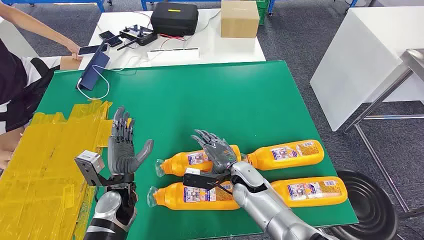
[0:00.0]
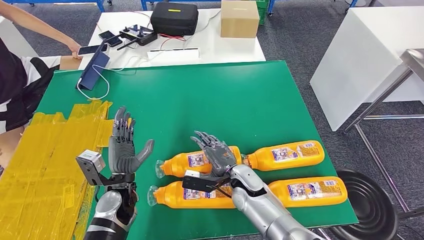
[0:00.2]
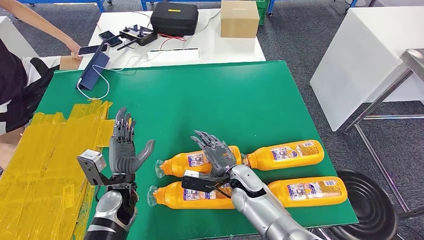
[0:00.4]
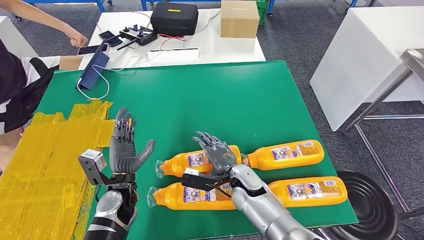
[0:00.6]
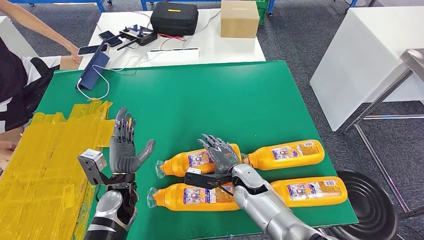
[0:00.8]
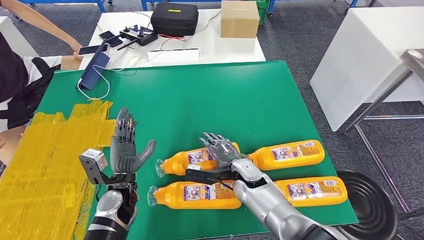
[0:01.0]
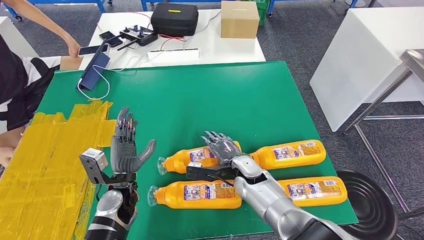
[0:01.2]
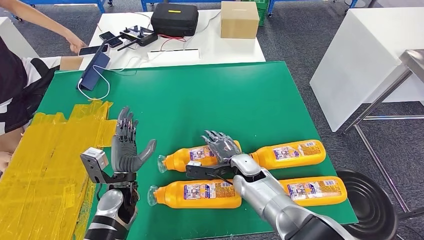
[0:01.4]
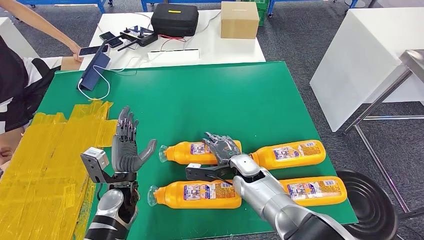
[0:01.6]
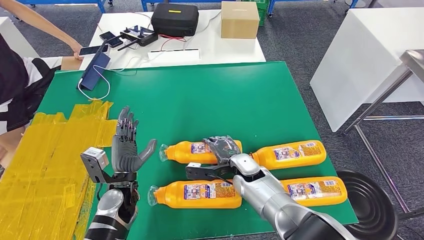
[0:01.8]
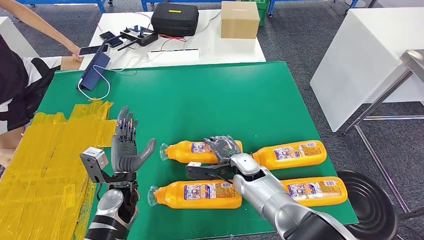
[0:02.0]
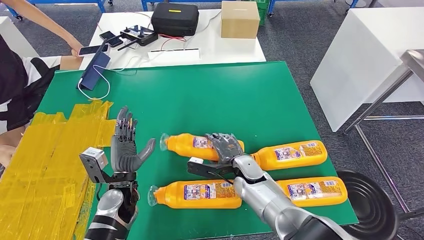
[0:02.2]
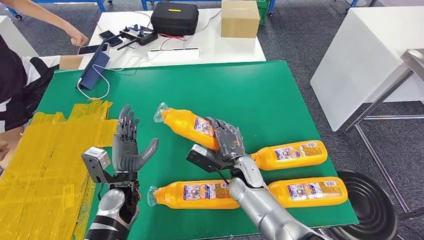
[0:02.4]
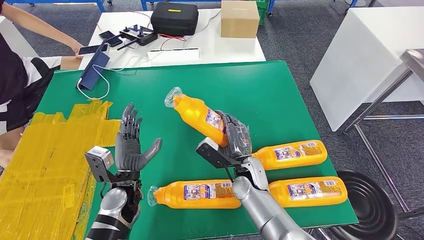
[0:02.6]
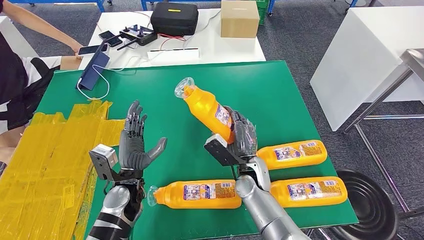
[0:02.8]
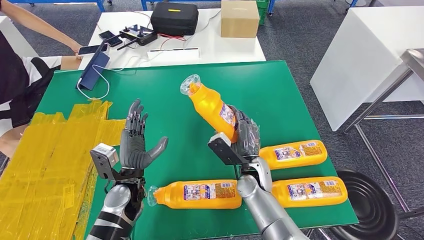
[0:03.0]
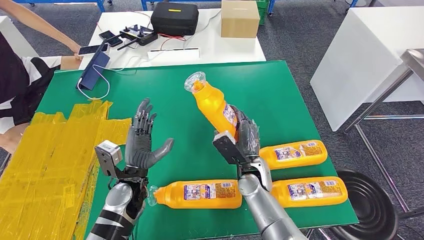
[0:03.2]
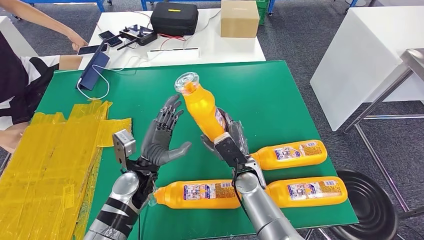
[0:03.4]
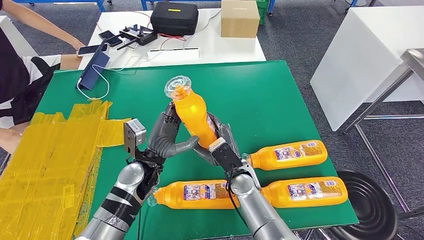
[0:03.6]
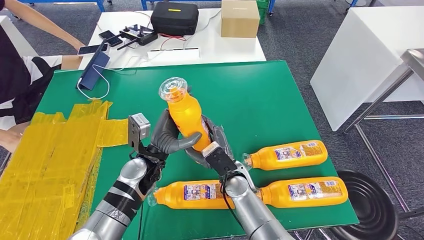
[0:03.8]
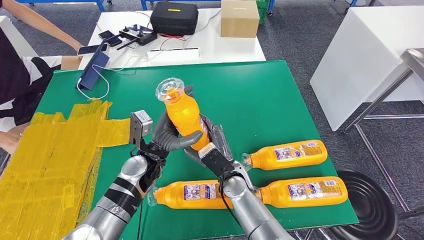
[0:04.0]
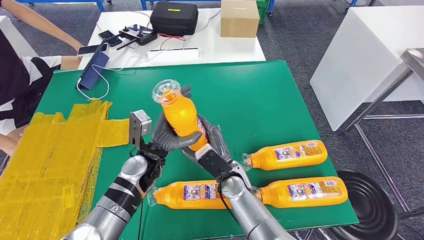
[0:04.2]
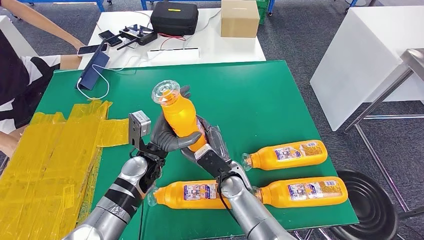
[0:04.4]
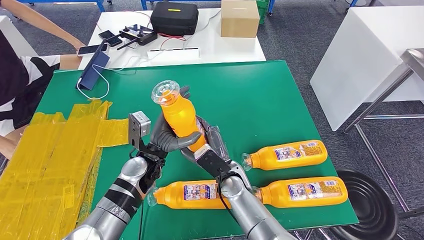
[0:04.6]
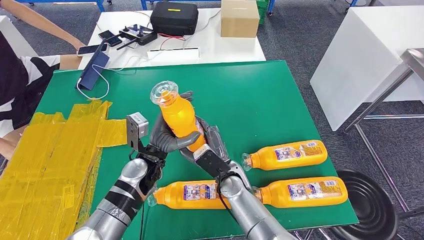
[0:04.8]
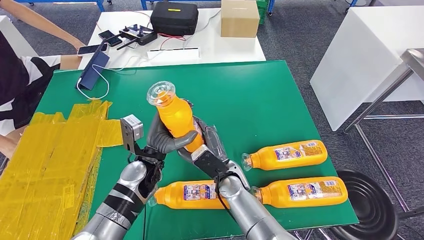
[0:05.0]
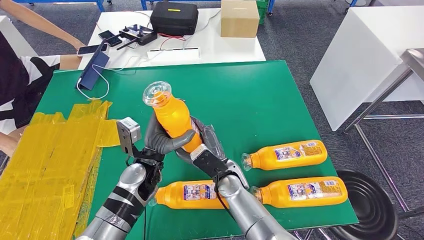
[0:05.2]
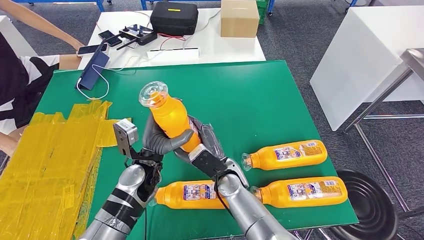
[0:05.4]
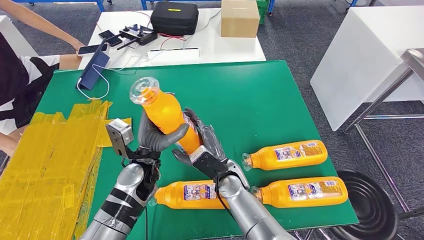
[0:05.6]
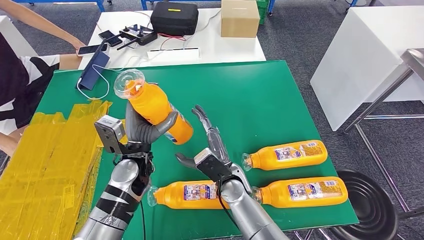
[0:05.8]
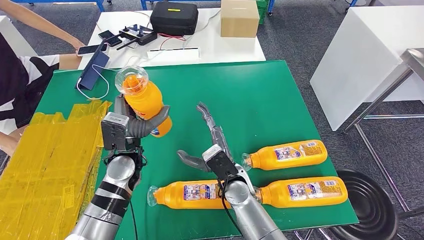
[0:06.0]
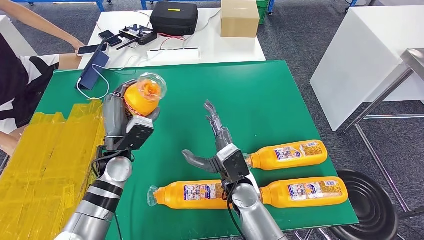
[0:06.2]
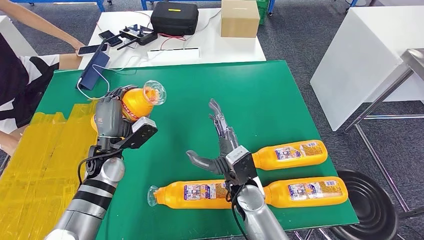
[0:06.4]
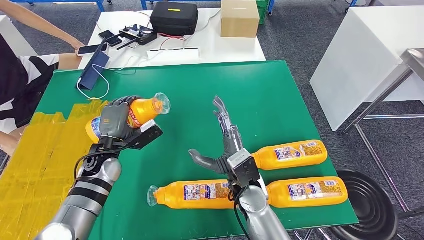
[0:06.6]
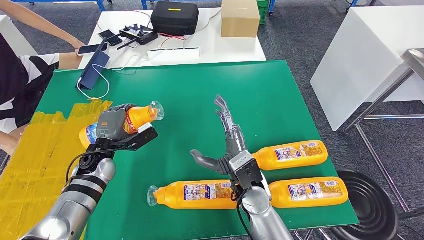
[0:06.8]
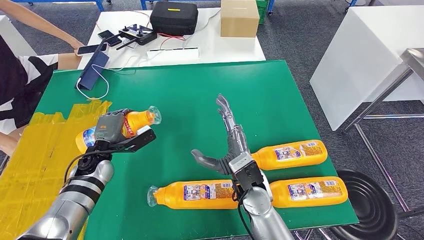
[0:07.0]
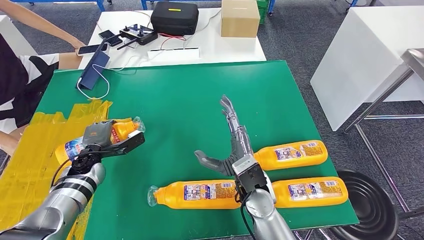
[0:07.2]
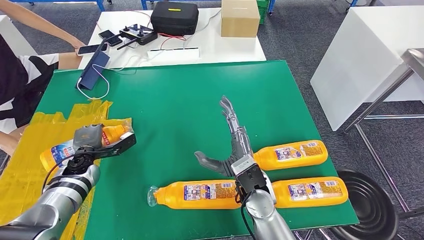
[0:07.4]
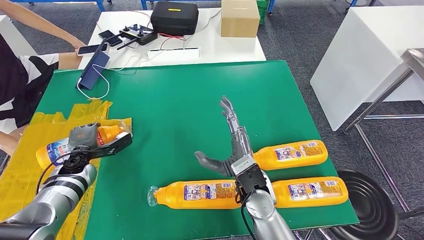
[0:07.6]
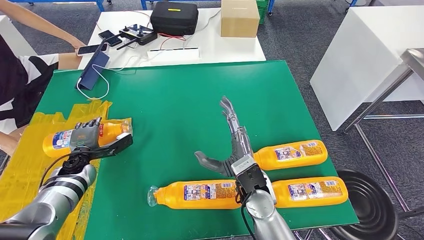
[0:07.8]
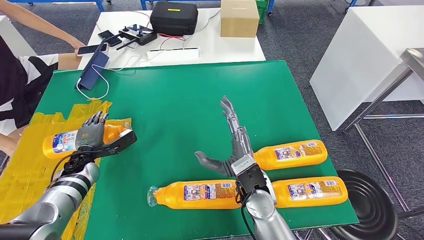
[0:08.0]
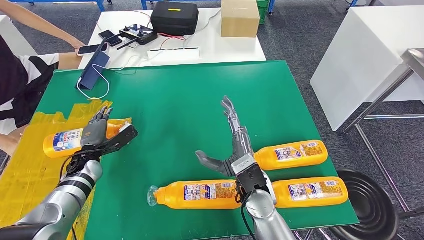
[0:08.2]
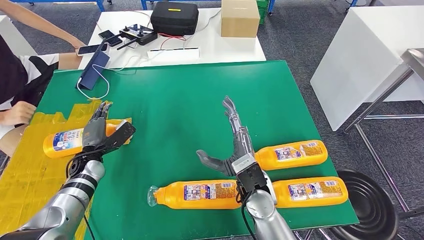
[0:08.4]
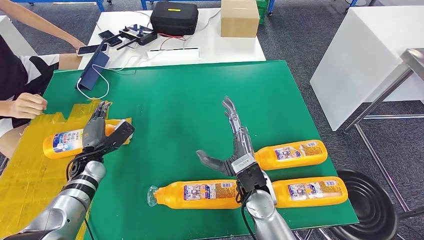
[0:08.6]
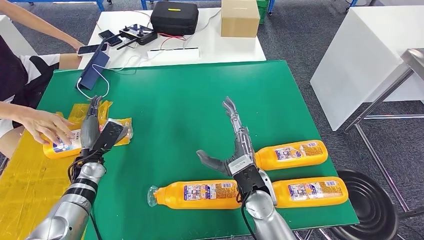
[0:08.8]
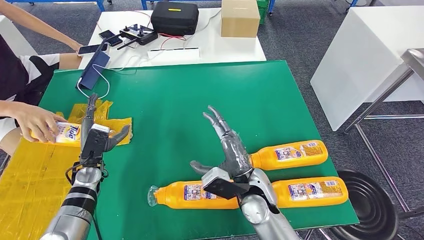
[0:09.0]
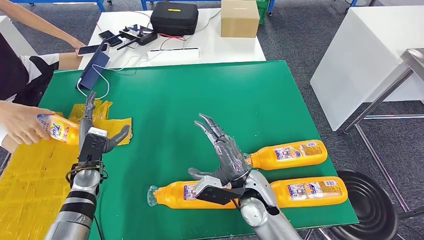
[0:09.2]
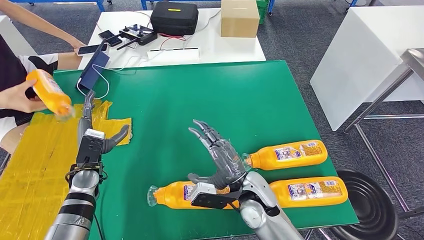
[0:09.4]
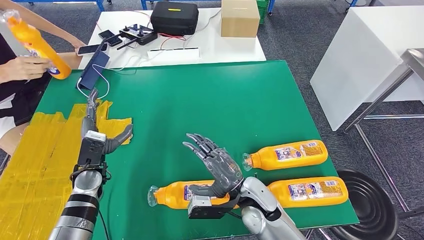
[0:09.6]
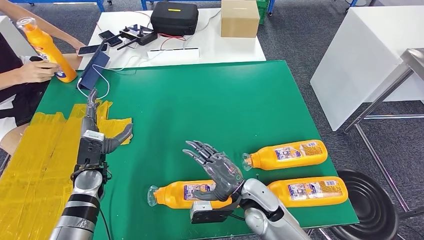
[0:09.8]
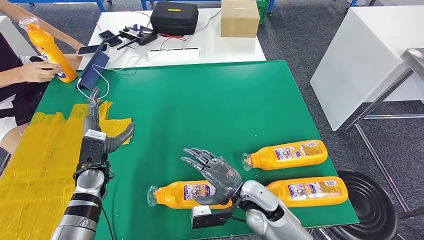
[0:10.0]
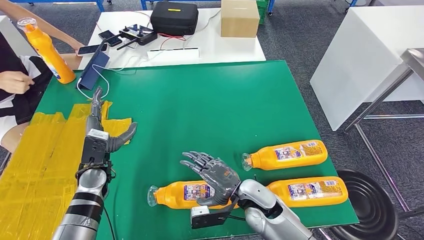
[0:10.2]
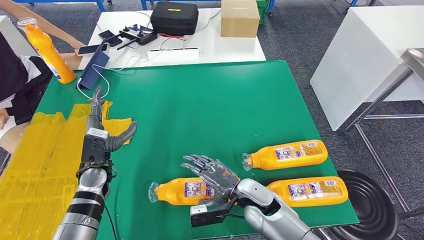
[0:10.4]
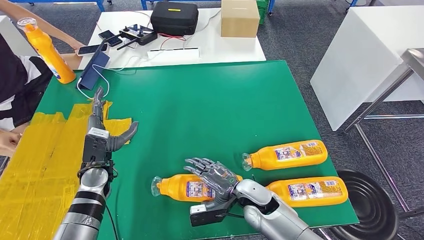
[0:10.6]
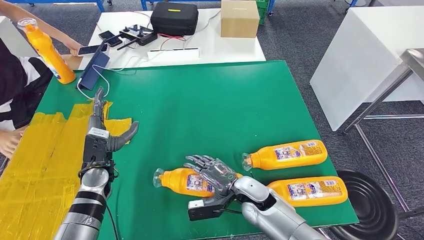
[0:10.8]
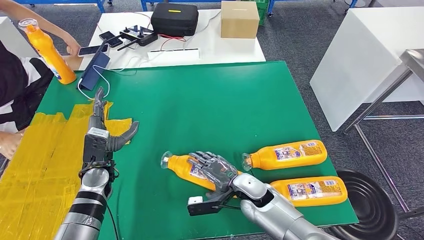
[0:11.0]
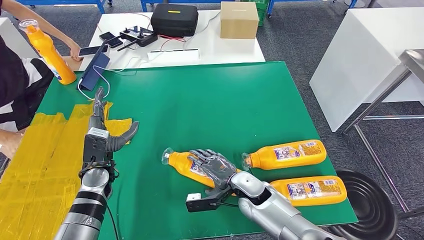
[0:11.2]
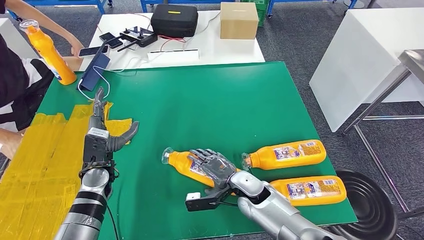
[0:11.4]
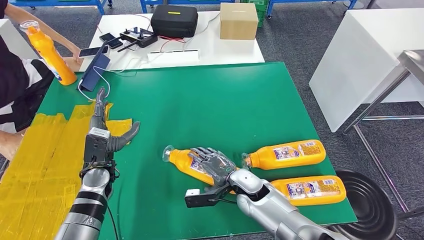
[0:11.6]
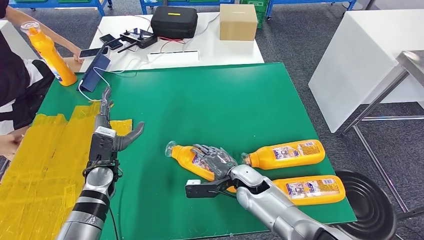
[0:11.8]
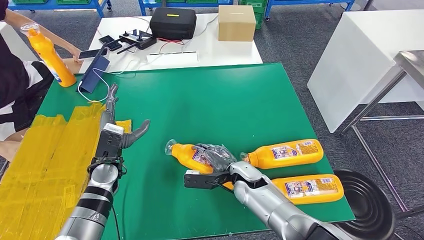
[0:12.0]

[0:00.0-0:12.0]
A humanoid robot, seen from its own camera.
Step, 0:00.0 to 0:06.0: Take the fast-moving consumer goods bottle from the table.
Step, 0:06.4 to 0:10.0: Flip the fast-moving consumer goods bottle to the front side.
0:03.0 to 0:04.4: The left hand is displaced forward by approximately 5 cm; the right hand heads to the left, covering approximately 5 cm.
0:04.4 to 0:06.0: The left hand ends up roughly 5 cm from where it was.
0:06.0 to 0:07.6: The left hand shifts about 20 cm to the left and downward. Meanwhile the right hand ends up roughly 5 cm from where it was.
0:07.6 to 0:09.0: The left hand ends up approximately 5 cm from where it was.
0:09.0 to 0:10.4: The right hand travels downward by some 5 cm.

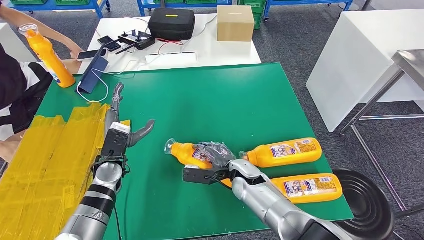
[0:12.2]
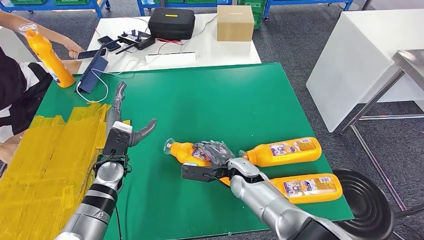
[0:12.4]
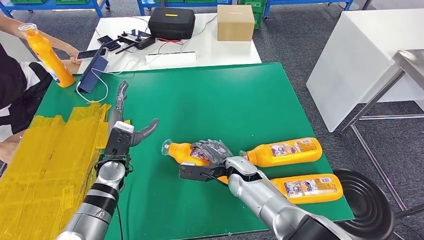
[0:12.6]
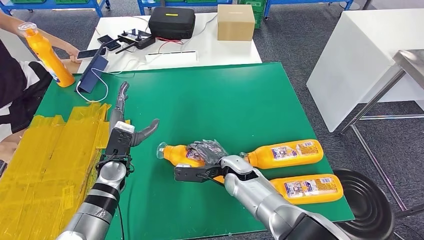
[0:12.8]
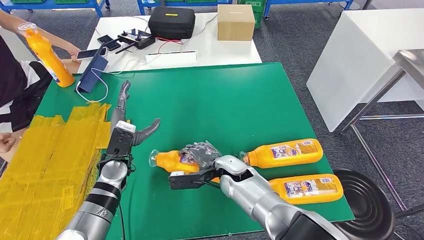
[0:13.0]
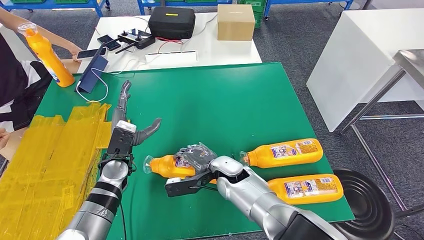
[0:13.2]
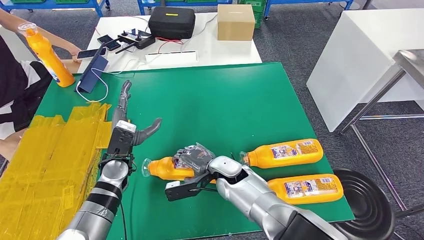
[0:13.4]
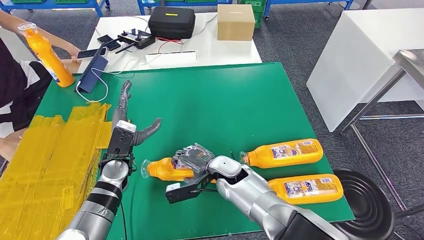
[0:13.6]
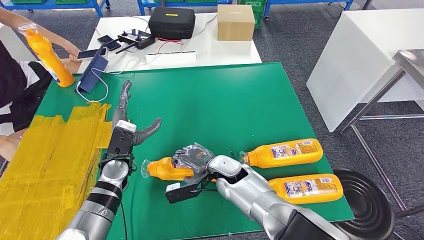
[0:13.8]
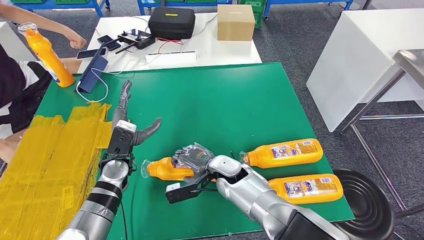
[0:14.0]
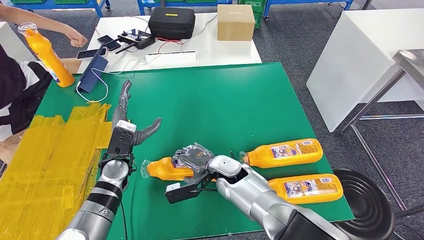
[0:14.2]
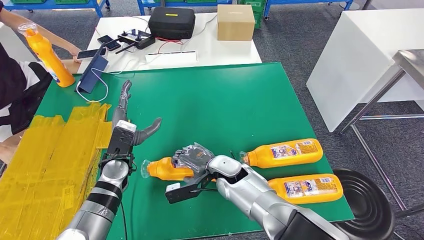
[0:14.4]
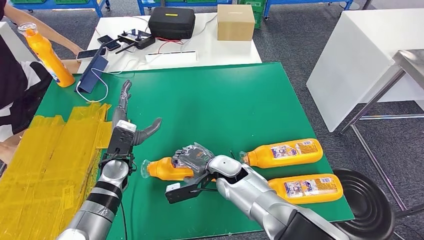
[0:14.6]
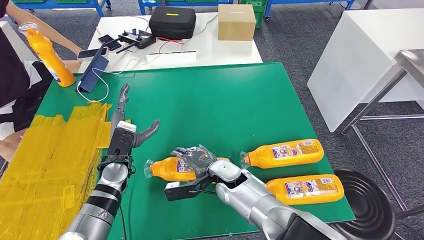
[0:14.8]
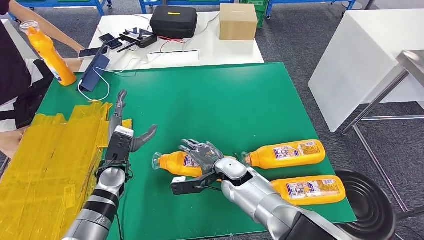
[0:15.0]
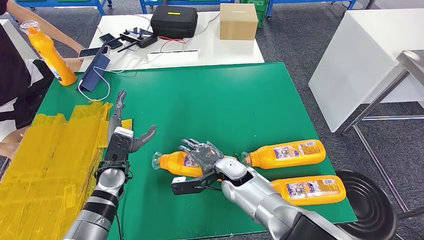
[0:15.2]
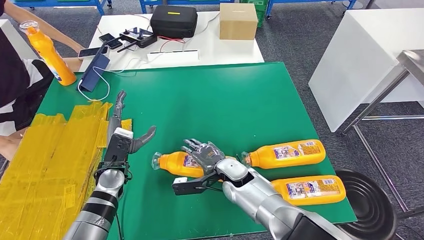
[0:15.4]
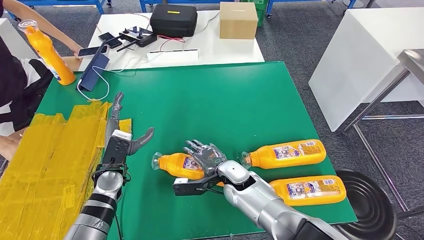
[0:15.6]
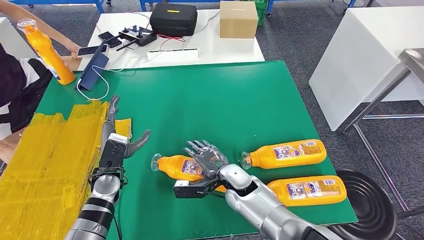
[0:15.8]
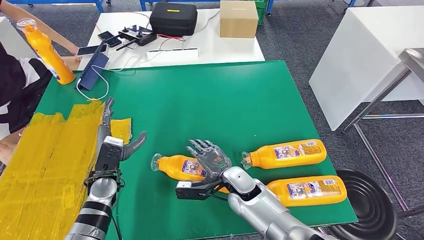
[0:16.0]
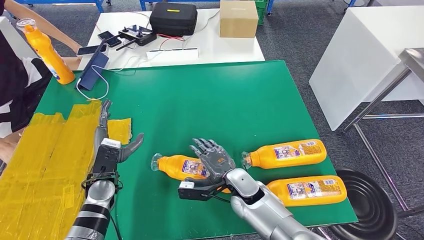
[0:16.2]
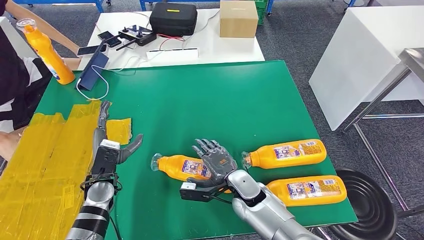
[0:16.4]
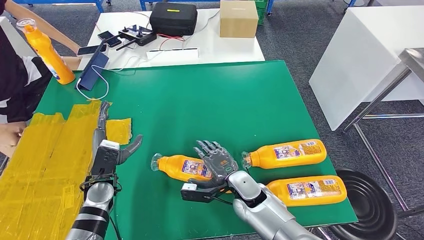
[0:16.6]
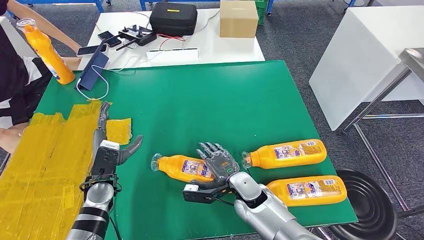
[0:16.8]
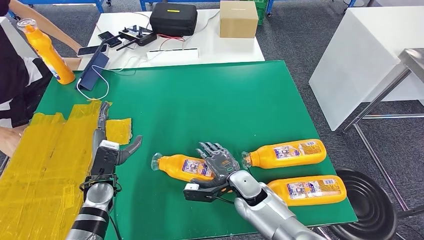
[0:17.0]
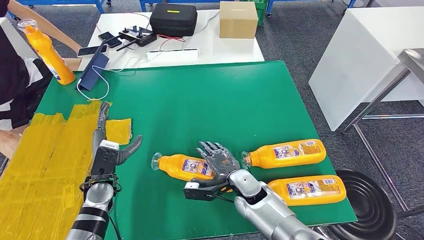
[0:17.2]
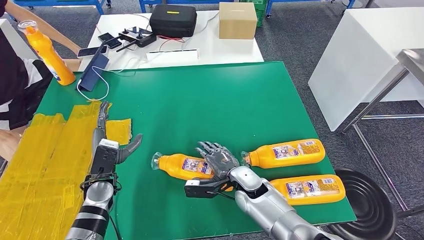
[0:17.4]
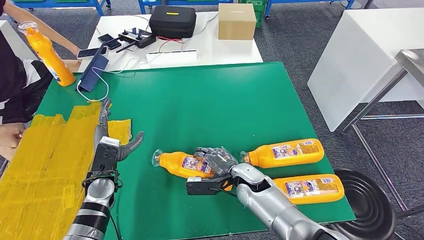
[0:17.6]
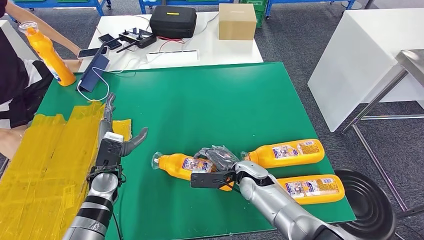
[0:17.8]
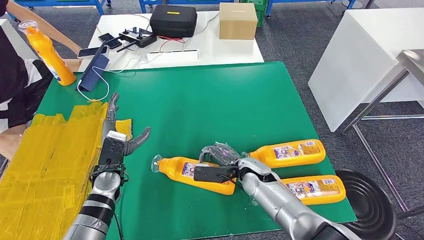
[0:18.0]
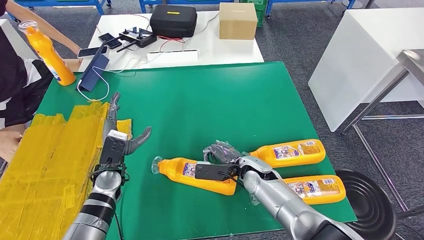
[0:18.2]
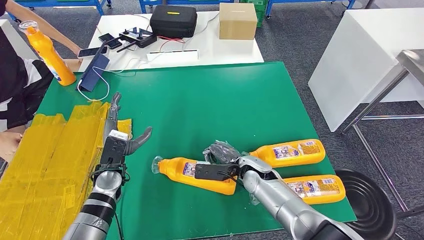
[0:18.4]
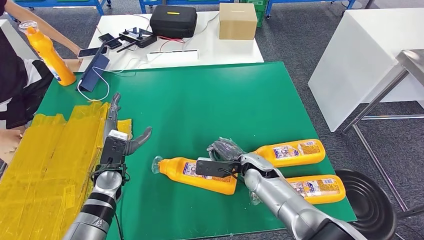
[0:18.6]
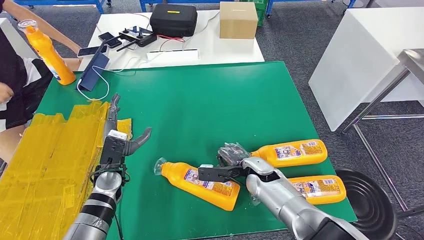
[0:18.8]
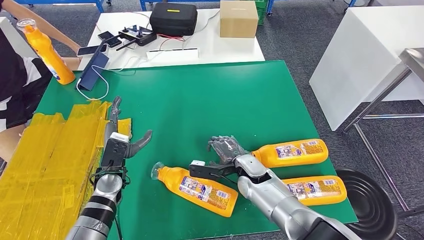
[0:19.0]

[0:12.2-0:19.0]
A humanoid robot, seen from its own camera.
0:12.2 to 0:13.6: The right hand ends up some 5 cm from where it was.
0:13.6 to 0:15.0: The hands make only small movements.
0:16.2 to 0:17.6: The hands move only a little.
